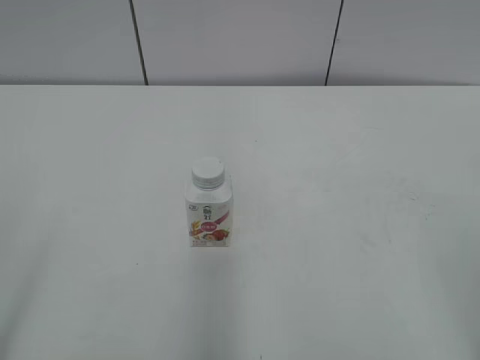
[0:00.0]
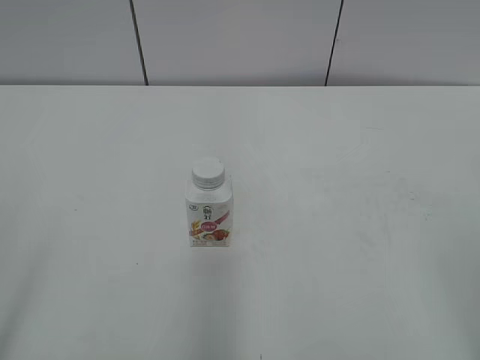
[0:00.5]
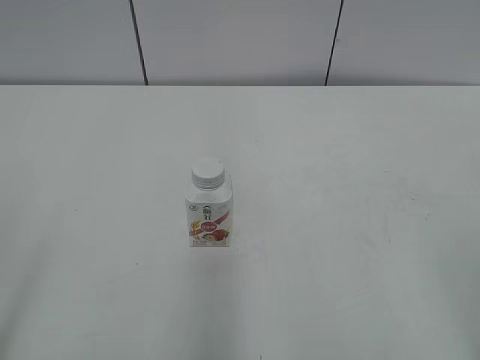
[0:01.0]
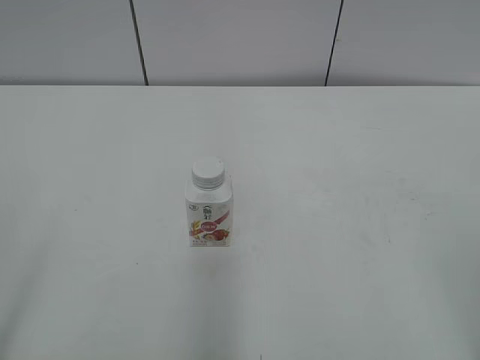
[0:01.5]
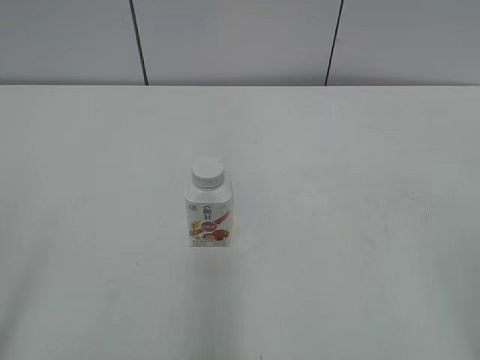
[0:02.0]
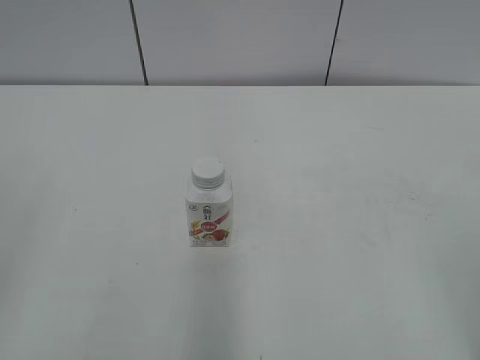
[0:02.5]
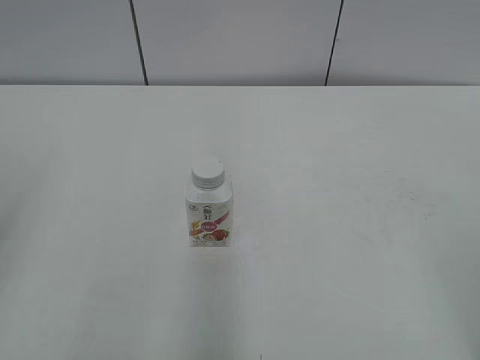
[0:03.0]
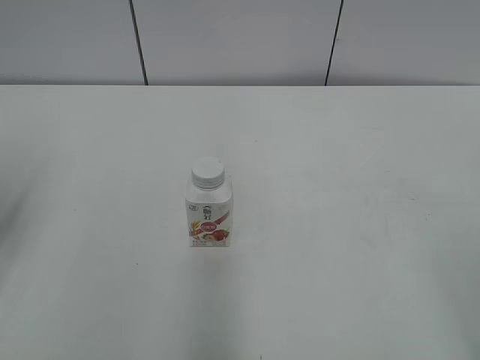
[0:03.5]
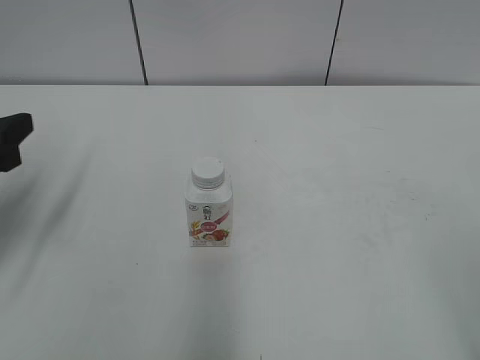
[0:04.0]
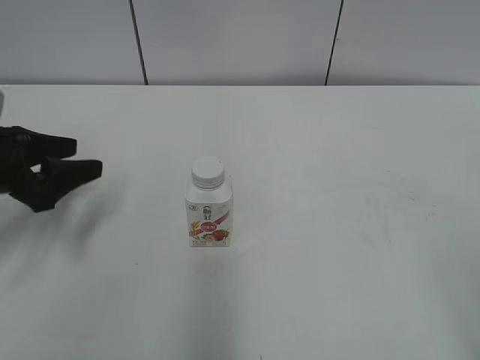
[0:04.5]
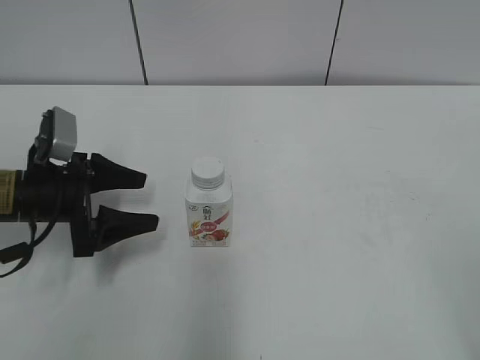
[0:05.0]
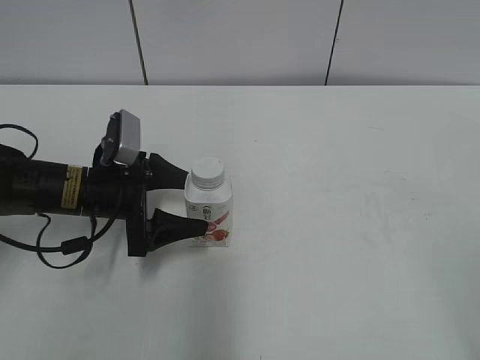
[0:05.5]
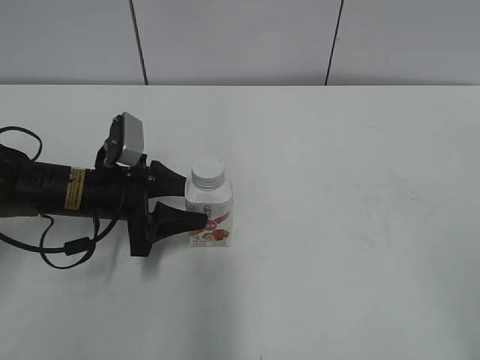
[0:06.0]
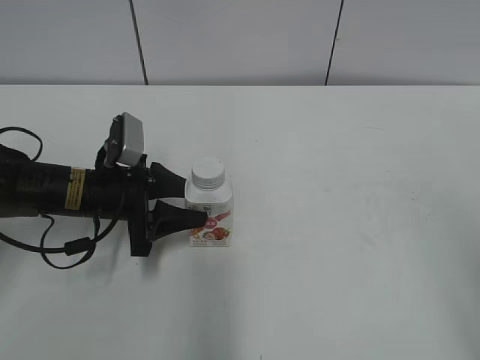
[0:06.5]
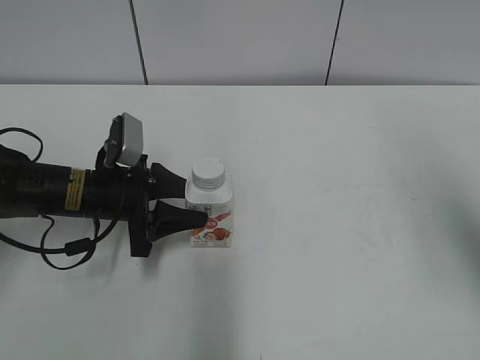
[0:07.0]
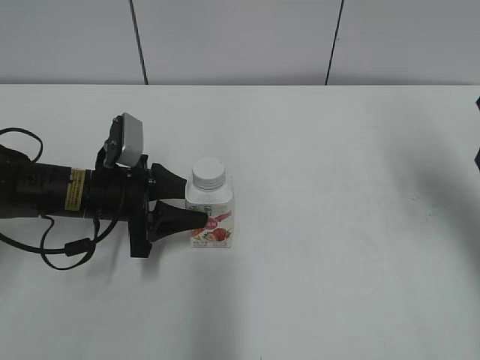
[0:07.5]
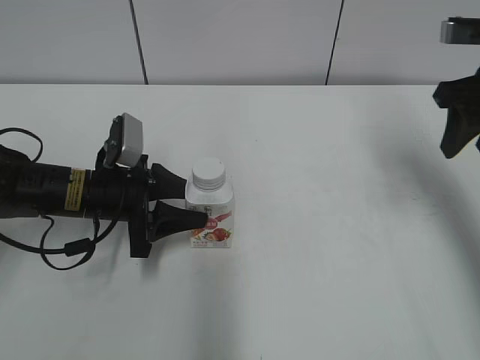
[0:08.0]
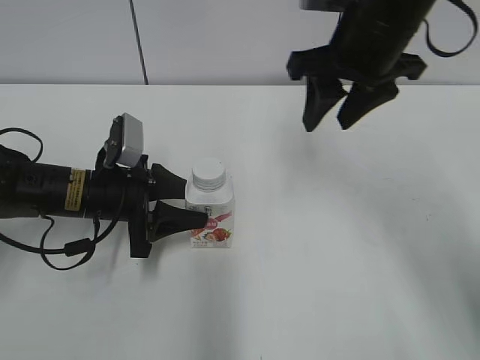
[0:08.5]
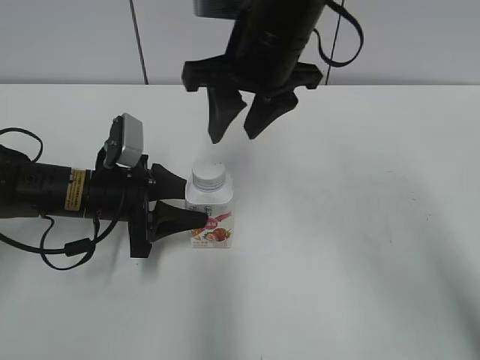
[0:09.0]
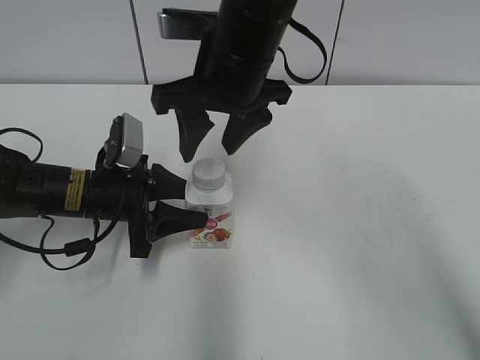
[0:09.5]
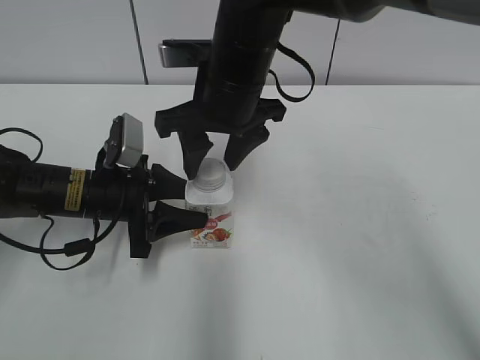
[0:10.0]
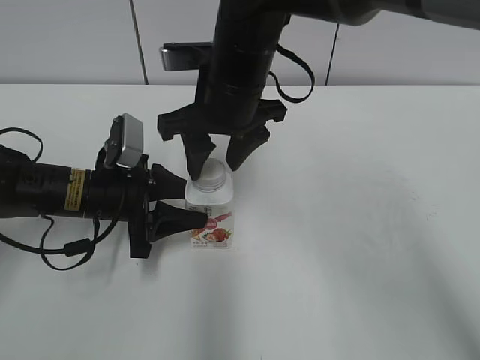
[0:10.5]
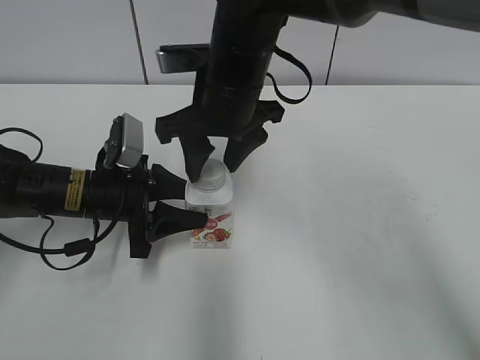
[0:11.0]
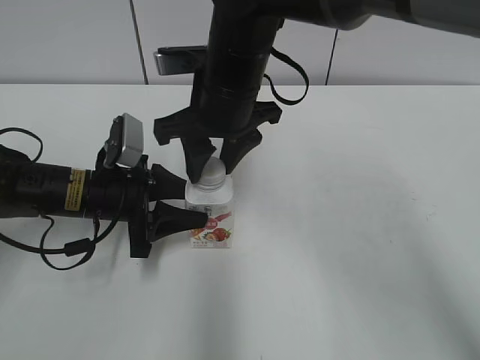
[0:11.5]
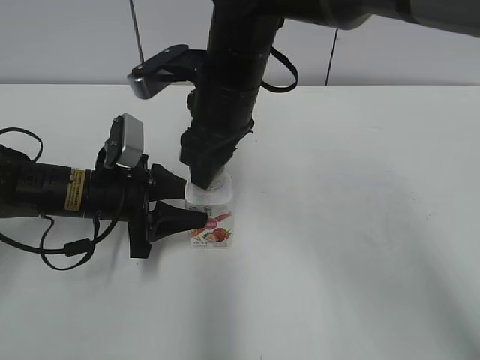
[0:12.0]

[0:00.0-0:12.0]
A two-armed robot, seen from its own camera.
Step, 0:00.0 to 0:06.5: Grab the Yili Changqing with the left hand.
0:02.0 to 0:04.0: The left gripper heads forward, covering roughly 25 cm.
0:04.0 to 0:06.0: The left gripper is displaced to the right, downward and forward by roughly 20 cm, and opens, then closes once more.
0:06.0 to 0:08.0: The right gripper heads forward, covering about 35 cm, and closes up.
0:08.0 to 0:10.0: The right gripper is displaced to the left by roughly 30 cm, and opens its fingers.
0:10.0 to 0:12.0: The right gripper closes up.

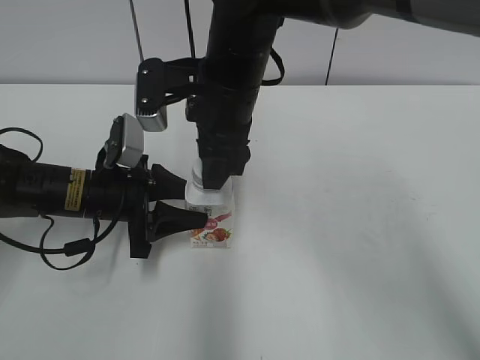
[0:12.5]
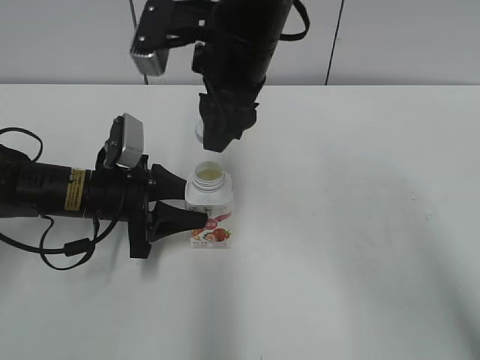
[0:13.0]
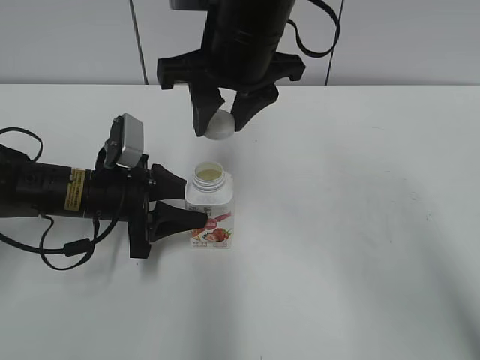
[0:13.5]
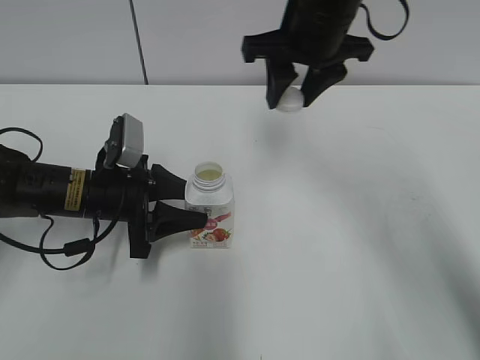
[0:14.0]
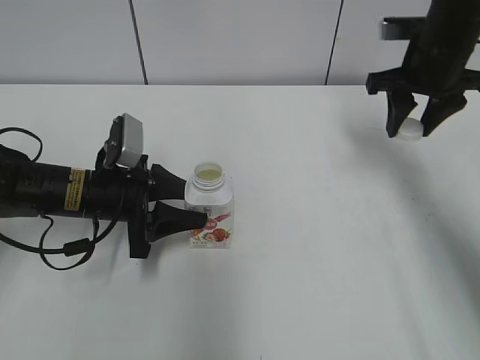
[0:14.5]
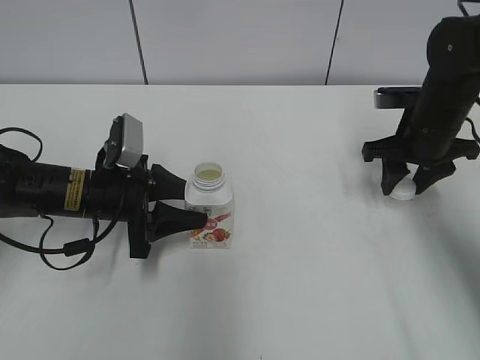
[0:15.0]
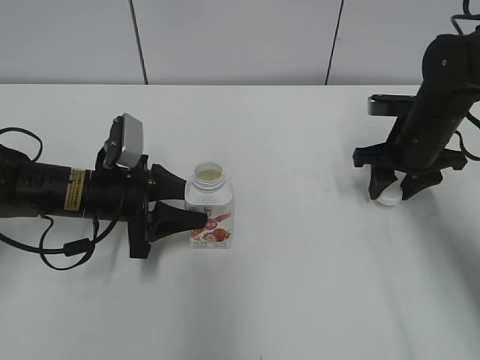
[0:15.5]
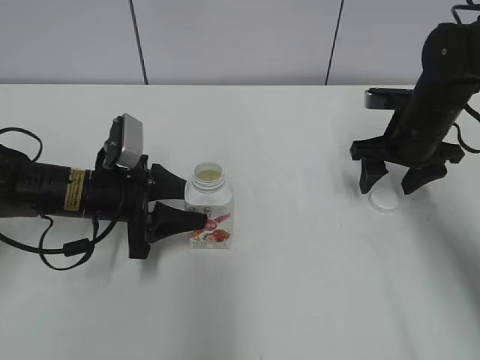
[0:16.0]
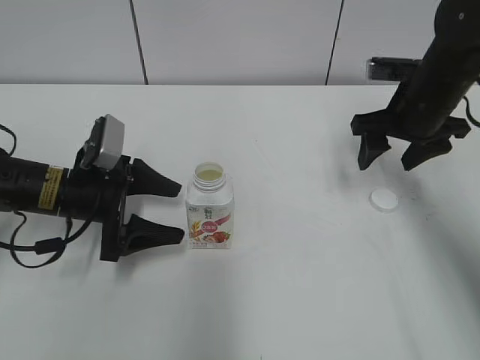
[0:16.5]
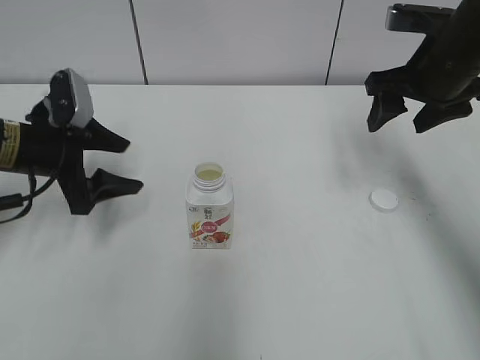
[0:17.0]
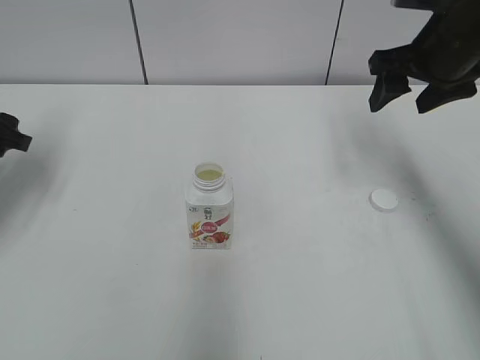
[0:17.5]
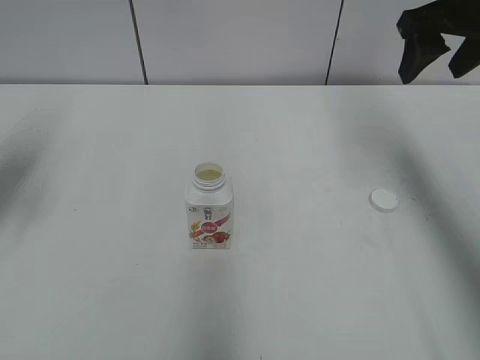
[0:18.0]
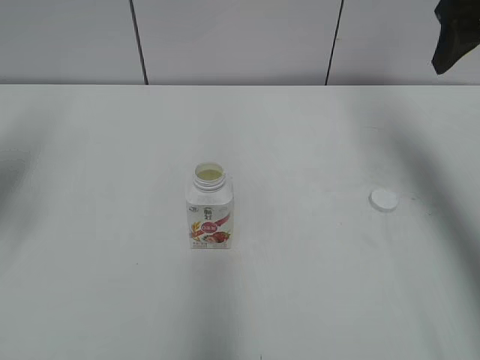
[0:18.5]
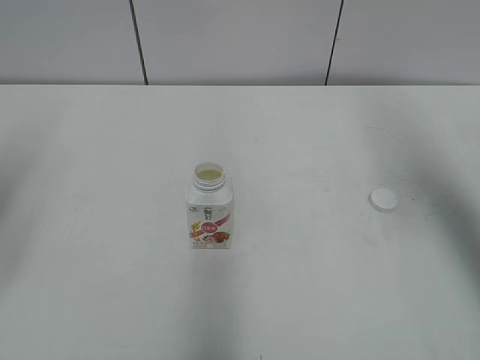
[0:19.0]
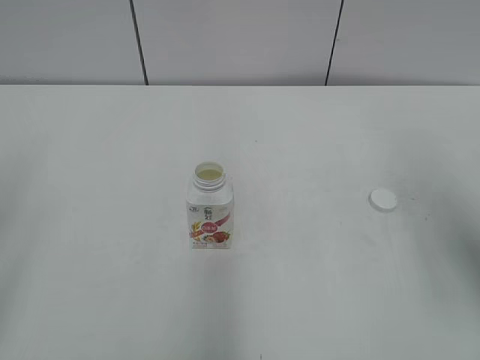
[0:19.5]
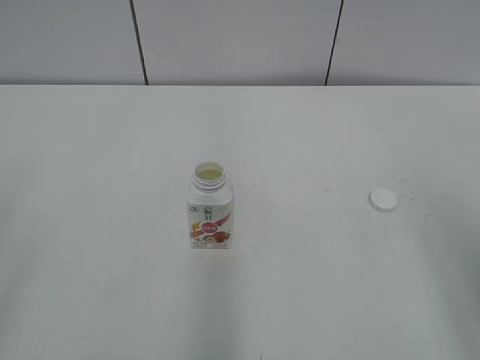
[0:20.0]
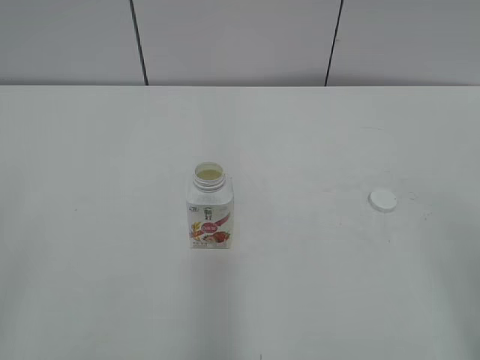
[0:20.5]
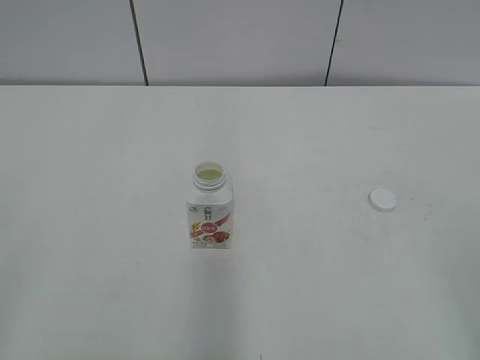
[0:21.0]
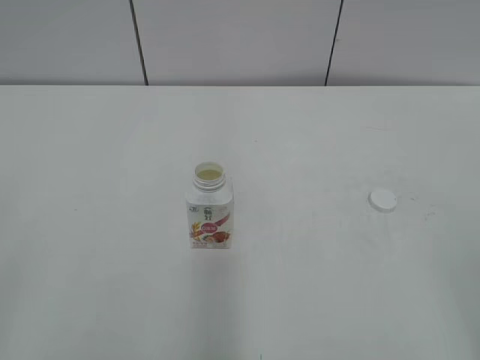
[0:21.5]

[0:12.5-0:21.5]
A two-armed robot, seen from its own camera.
Step, 0:13.0 to 0:15.5: Place the bottle cap on the right.
0:12.5 to 0:14.5: The right gripper heads to the right, covering approximately 25 cm.
0:14.5 to 0:17.0: The left gripper heads to the left and upward, covering about 10 cm, and opens up. The right gripper goes downward and returns, approximately 10 cm each way, and opens.
0:17.0 to 0:19.5: The grippers both shift backward and upward by about 25 cm.
0:19.5 to 0:21.5: The right gripper travels backward by about 20 cm.
